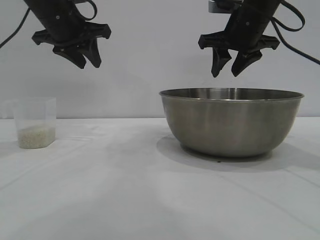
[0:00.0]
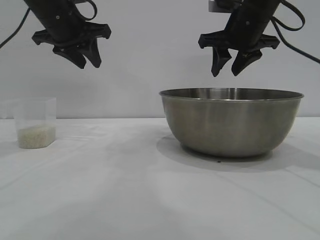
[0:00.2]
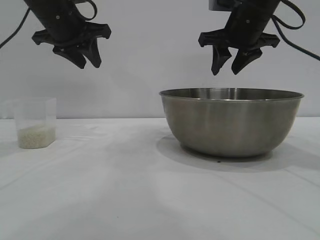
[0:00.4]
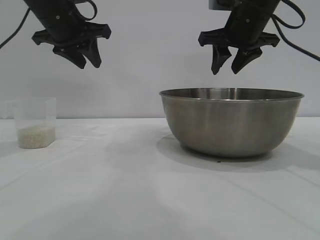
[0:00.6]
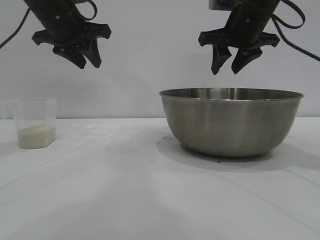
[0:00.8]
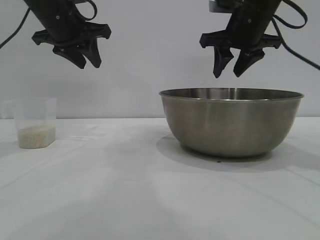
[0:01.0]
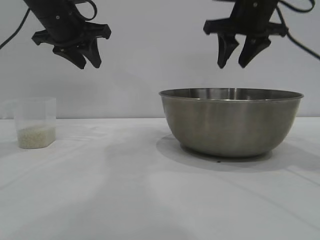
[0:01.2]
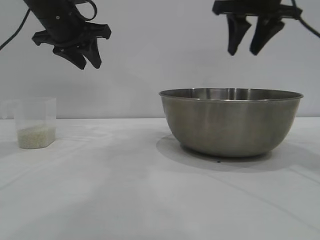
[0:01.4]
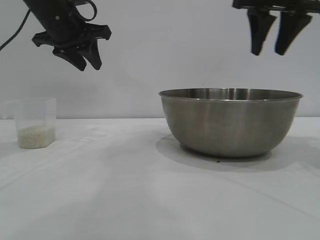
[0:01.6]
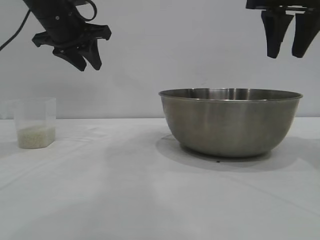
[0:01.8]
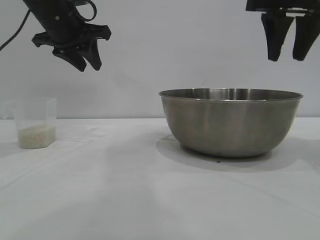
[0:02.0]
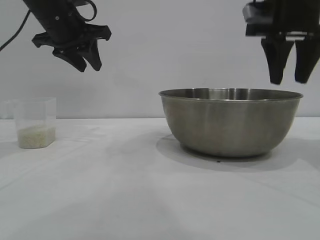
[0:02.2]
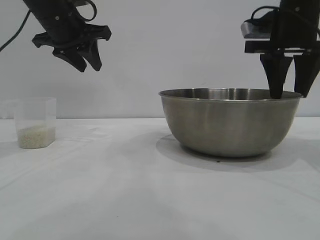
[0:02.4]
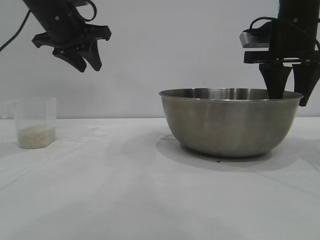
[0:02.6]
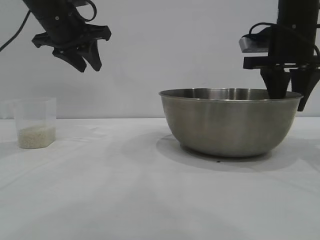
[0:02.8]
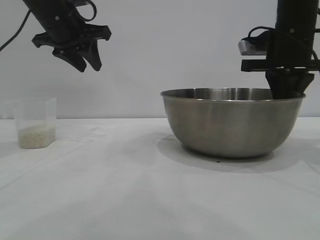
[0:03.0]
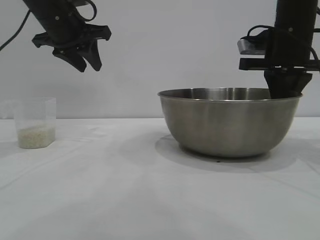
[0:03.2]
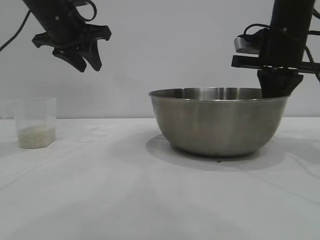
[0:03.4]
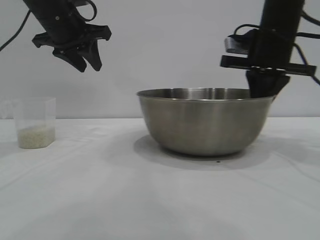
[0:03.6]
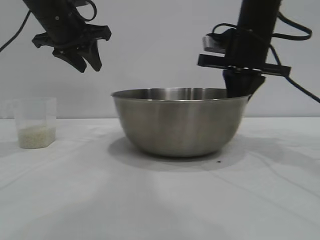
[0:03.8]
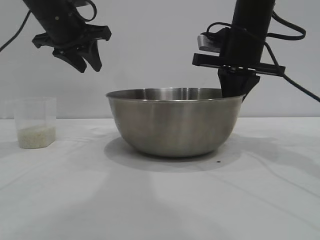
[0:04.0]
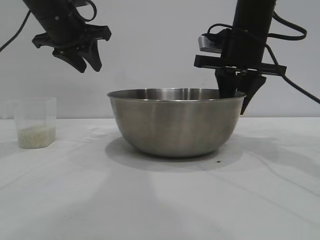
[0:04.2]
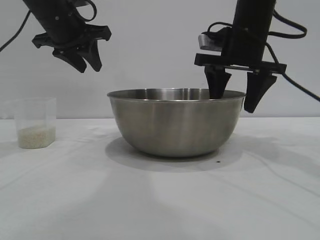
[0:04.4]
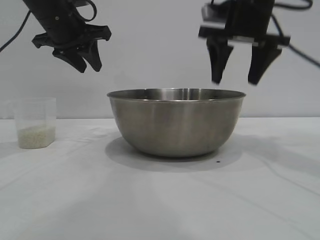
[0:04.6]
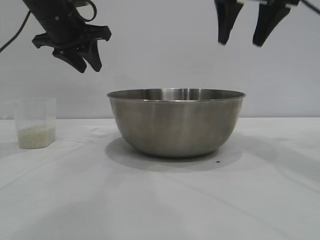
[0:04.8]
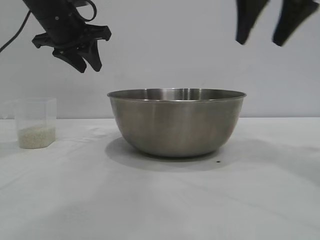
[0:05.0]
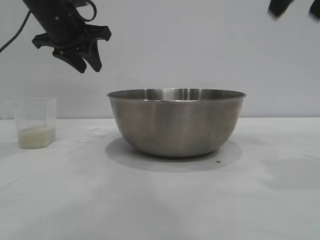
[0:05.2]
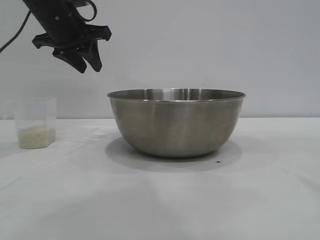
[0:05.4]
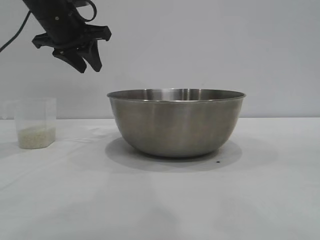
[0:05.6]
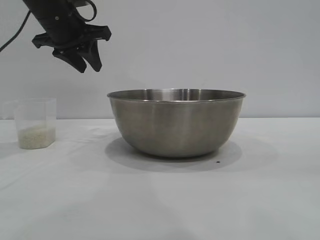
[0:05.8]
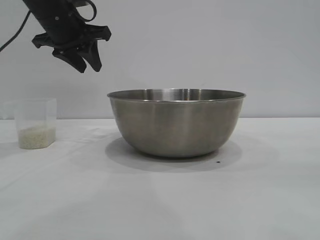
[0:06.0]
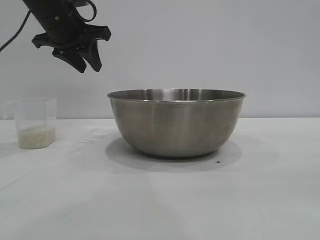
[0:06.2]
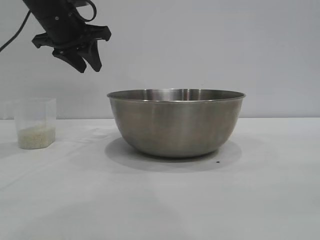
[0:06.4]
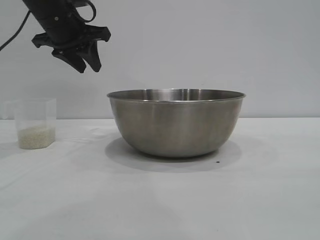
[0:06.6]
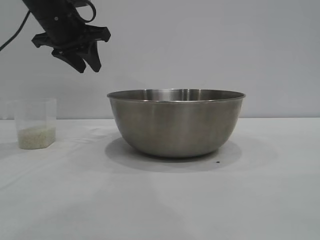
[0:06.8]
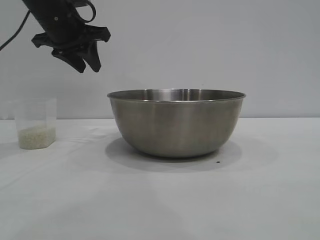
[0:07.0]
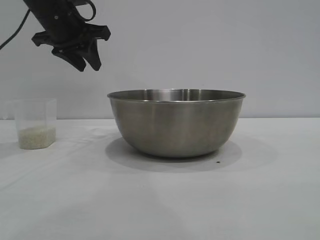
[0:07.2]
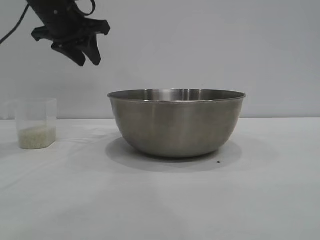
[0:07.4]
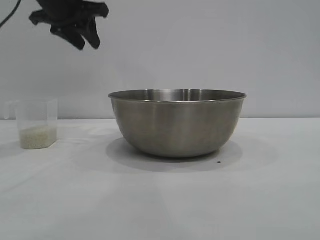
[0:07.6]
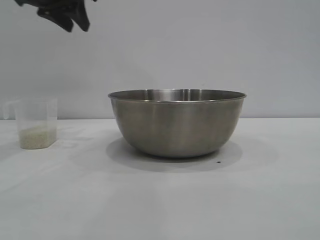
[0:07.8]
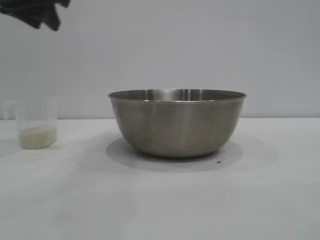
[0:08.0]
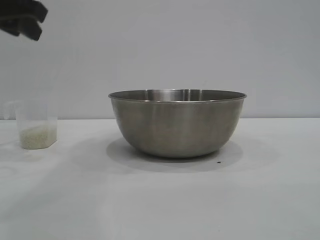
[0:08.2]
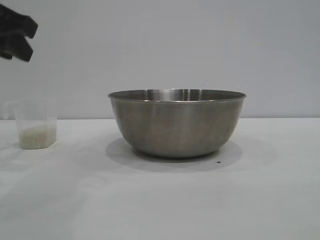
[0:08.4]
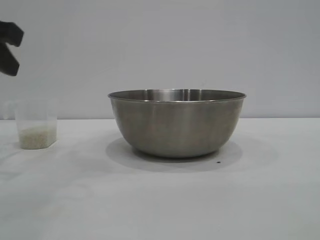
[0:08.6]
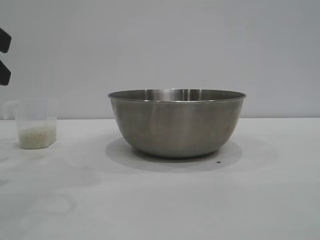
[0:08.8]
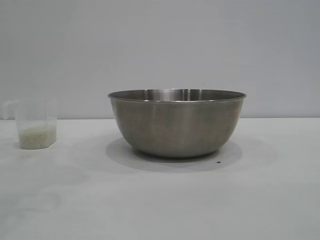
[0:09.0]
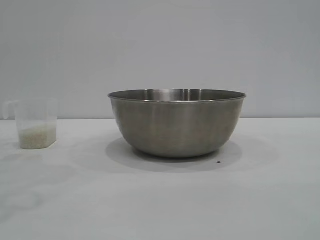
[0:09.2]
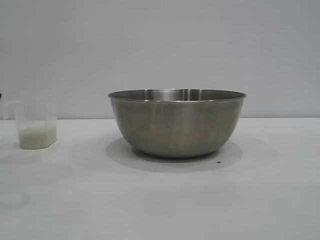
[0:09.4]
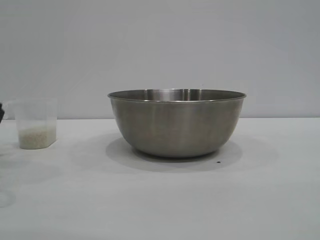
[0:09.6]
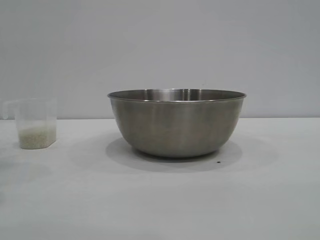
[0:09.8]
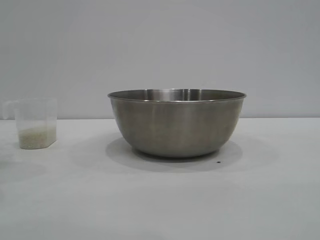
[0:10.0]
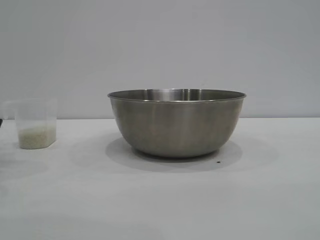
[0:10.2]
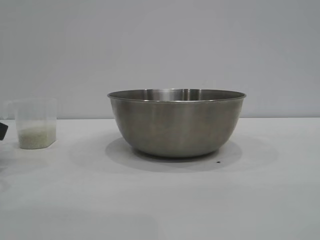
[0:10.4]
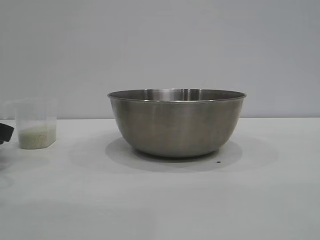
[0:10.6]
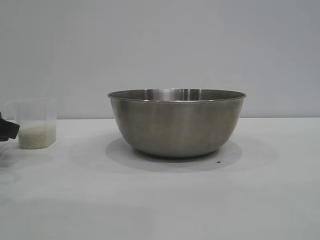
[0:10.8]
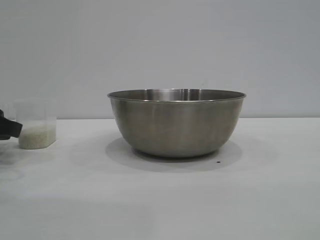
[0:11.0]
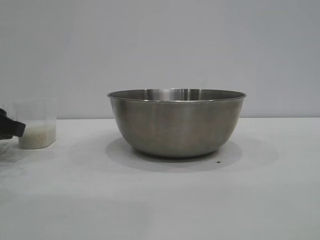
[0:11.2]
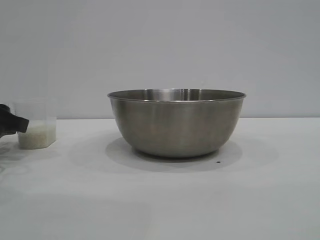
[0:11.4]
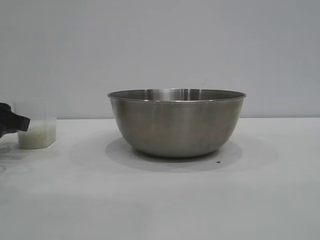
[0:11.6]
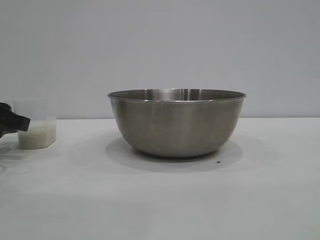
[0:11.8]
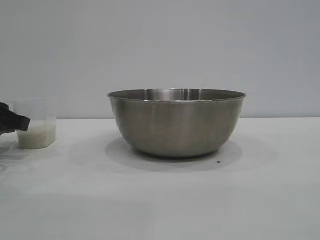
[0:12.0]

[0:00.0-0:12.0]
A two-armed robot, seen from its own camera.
Task of the whole recording: the right gripper grasp the rice container and place it in the center of the table, the left gripper grasp the rice scoop and pour the rice into the rice container.
Step, 0:00.0 to 0:04.6: Move the bowl to the center of view with the right gripper.

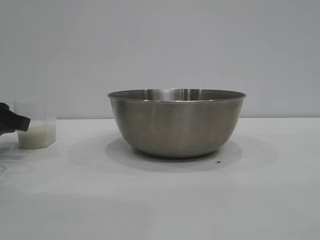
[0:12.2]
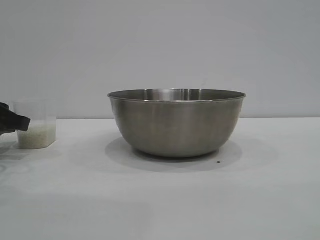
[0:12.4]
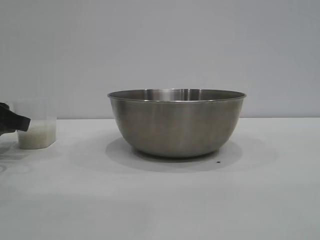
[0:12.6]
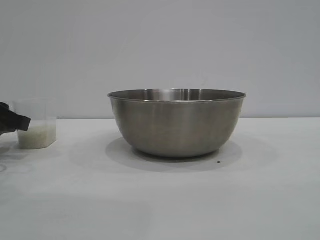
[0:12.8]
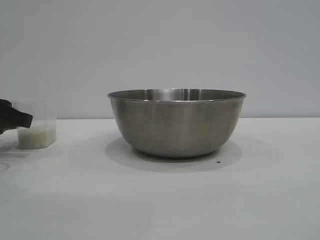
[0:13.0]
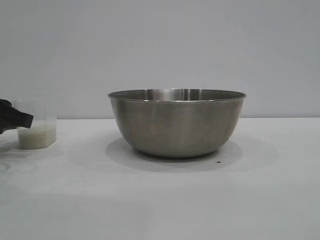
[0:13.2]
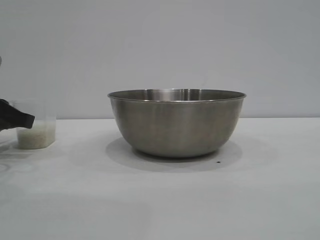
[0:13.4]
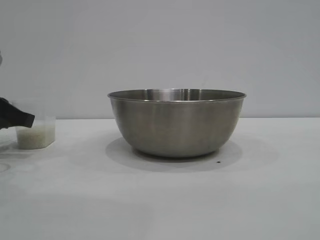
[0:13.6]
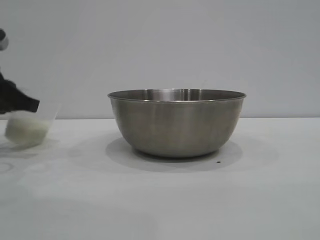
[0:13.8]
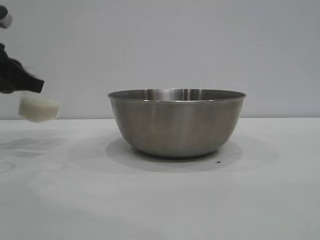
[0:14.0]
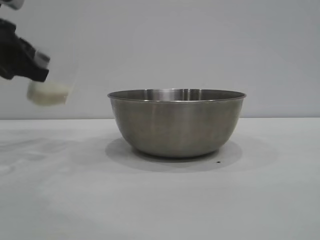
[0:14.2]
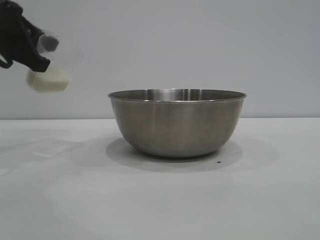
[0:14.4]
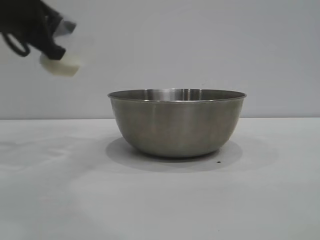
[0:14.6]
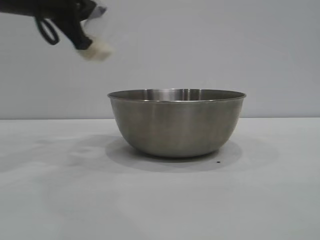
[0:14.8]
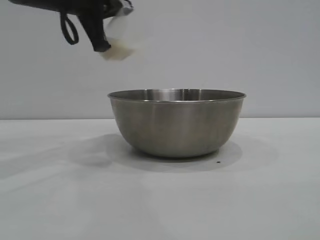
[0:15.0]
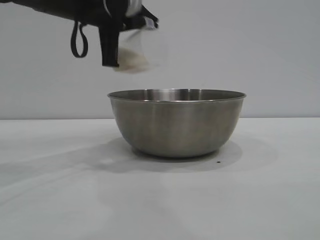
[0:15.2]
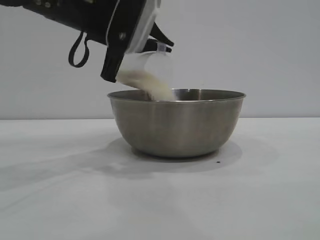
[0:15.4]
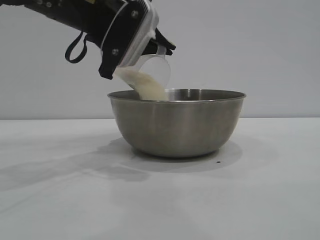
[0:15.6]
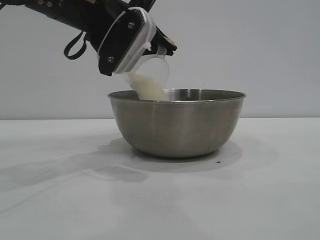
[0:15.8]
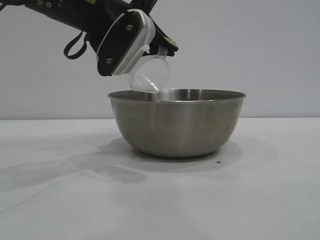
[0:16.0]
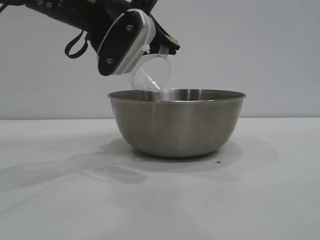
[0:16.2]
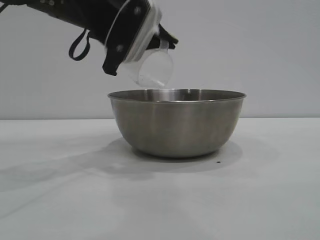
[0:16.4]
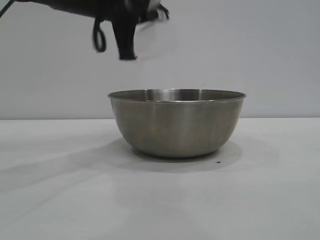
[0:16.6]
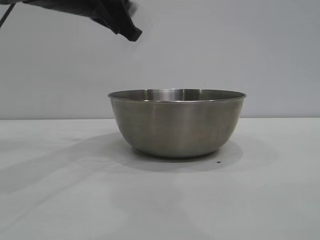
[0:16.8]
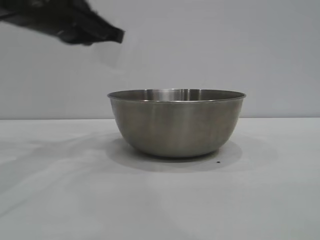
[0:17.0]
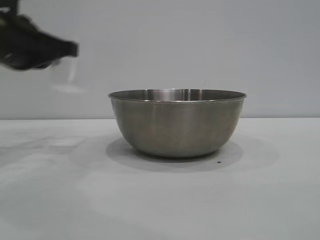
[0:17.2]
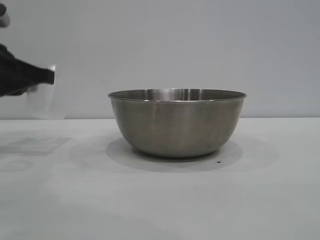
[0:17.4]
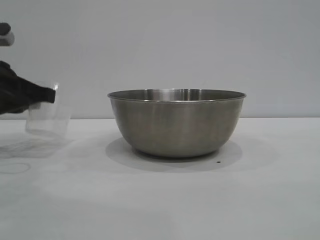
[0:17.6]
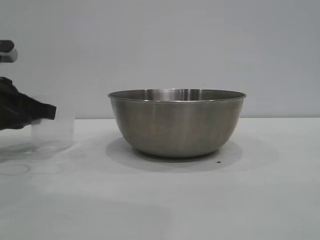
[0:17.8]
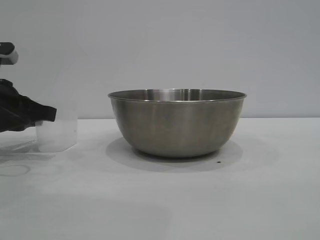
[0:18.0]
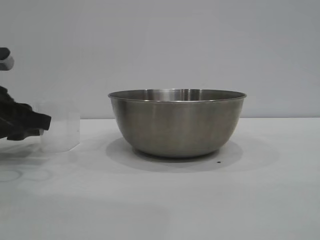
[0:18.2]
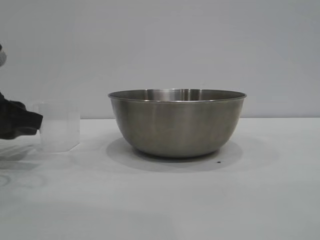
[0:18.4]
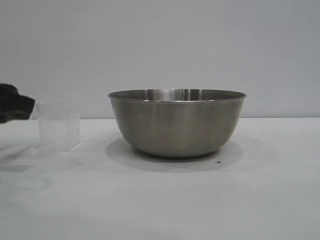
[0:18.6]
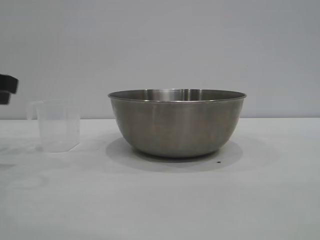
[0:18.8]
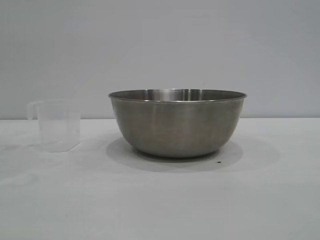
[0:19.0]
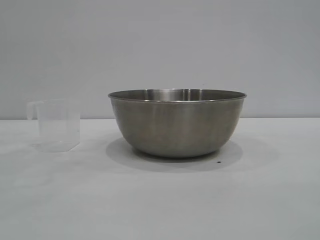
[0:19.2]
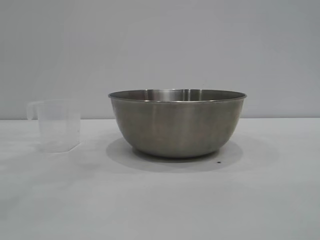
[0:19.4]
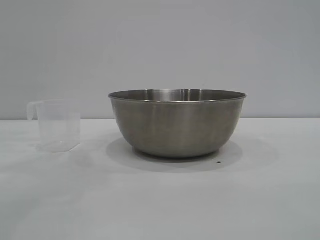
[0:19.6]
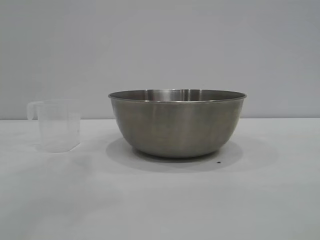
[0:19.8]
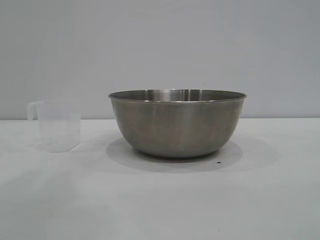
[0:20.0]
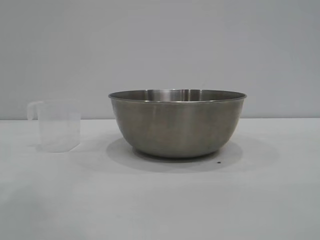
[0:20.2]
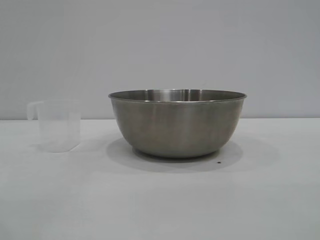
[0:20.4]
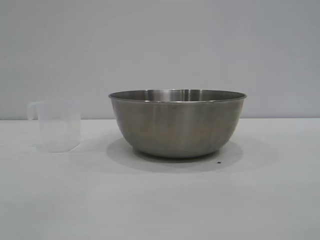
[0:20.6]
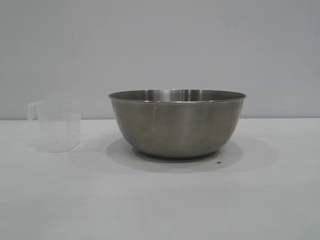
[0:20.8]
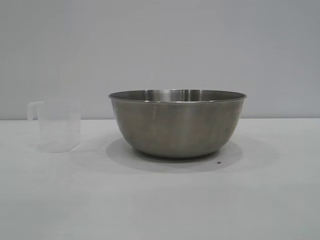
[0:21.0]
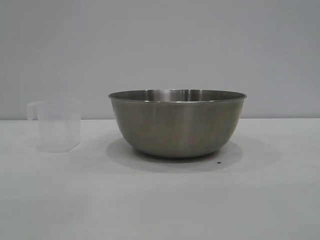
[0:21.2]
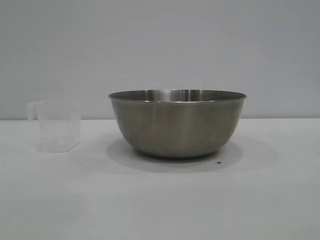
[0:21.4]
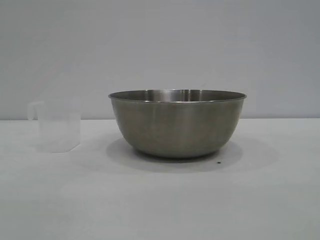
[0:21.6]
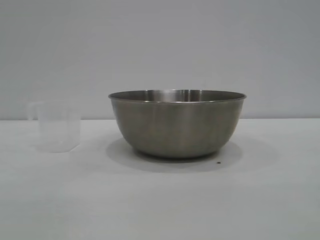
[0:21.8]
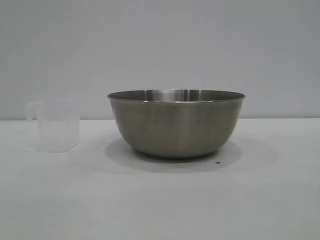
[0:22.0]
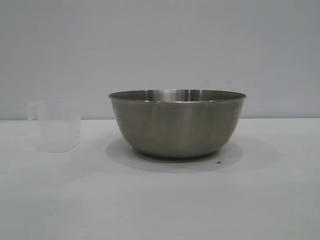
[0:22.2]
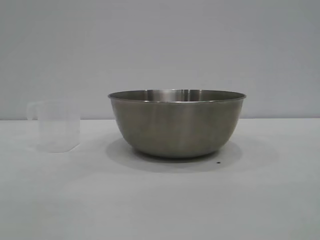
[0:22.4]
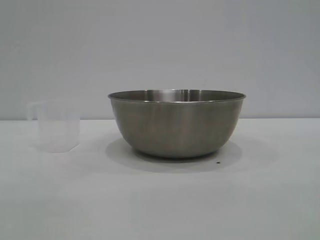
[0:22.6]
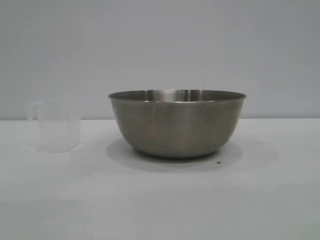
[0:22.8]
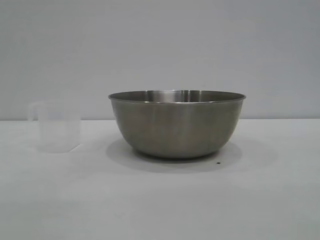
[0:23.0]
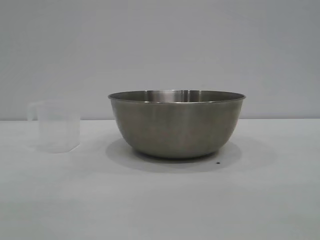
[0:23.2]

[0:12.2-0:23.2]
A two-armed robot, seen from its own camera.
Task of the whole recording: the right gripper grasp the rice container and place it in the center of the table, the left gripper grasp the rice scoop and pour the rice into the rice container.
Step, 0:14.2 to 0:17.0: Pour the rice from the cup into the bowl with the left gripper.
Step, 0:17.2 to 0:18.6: Place the cup on the table with the left gripper.
